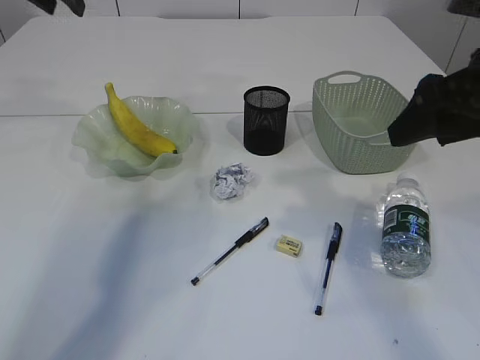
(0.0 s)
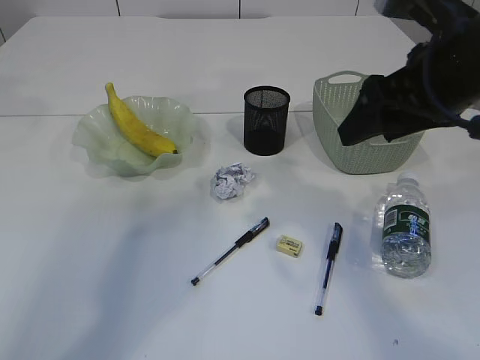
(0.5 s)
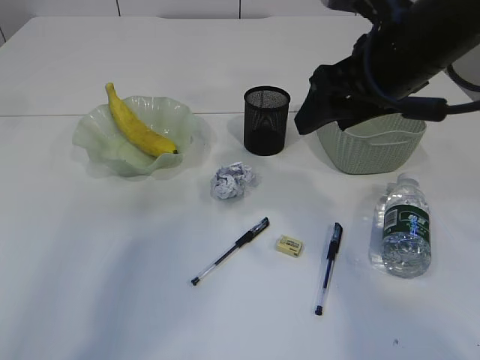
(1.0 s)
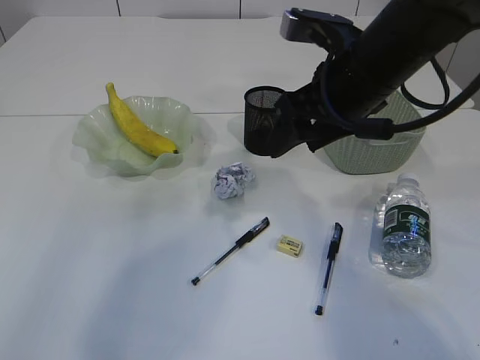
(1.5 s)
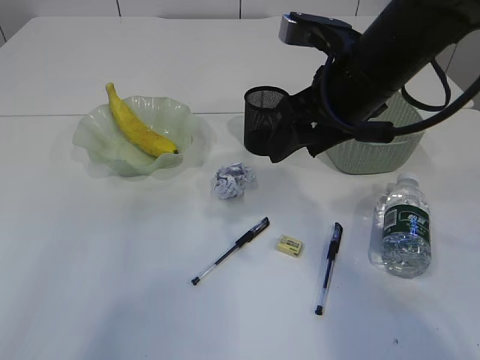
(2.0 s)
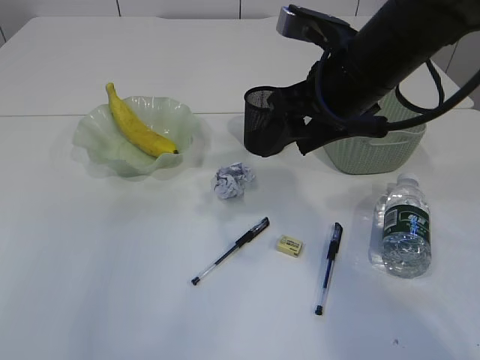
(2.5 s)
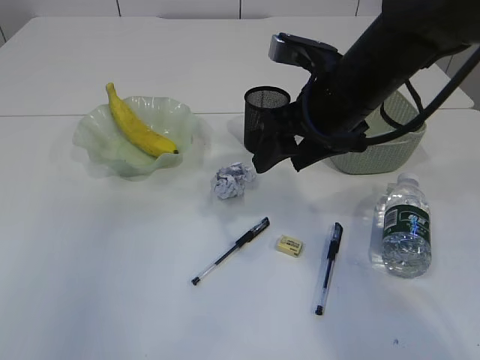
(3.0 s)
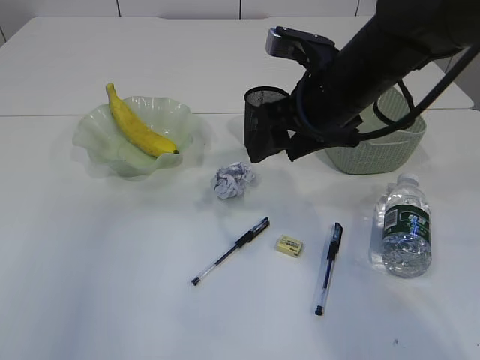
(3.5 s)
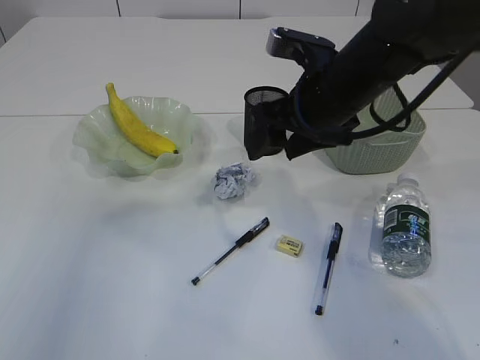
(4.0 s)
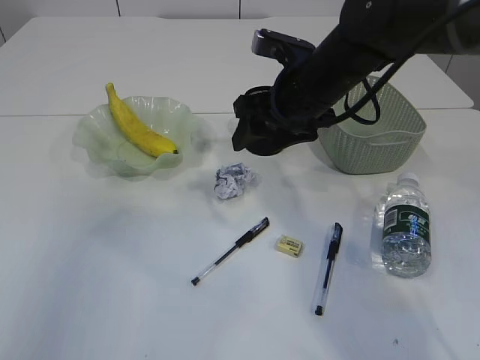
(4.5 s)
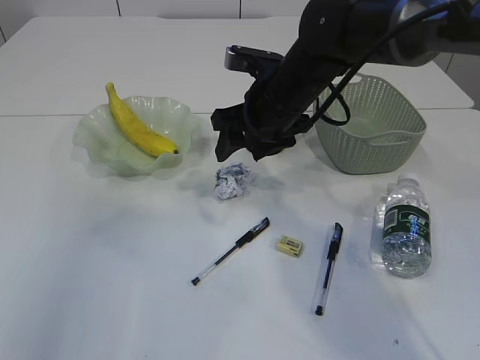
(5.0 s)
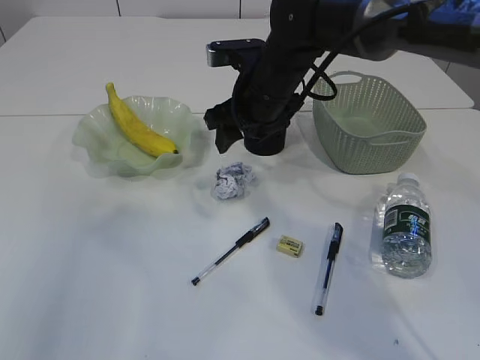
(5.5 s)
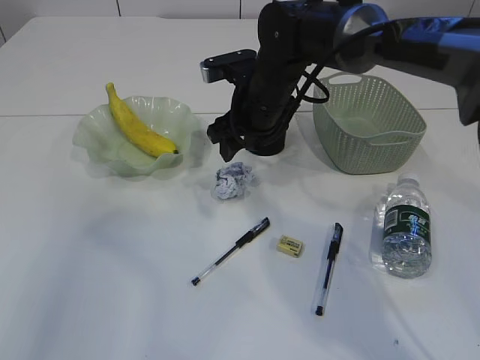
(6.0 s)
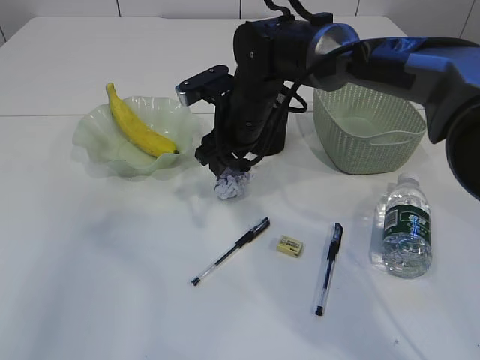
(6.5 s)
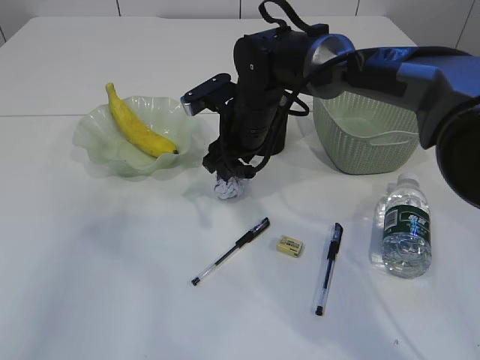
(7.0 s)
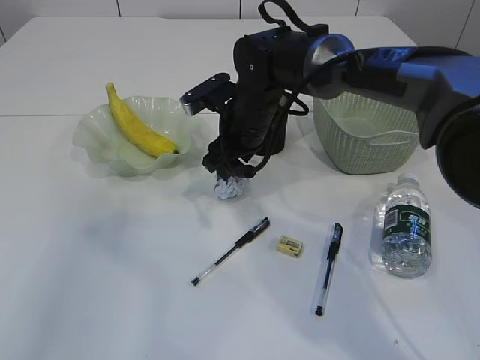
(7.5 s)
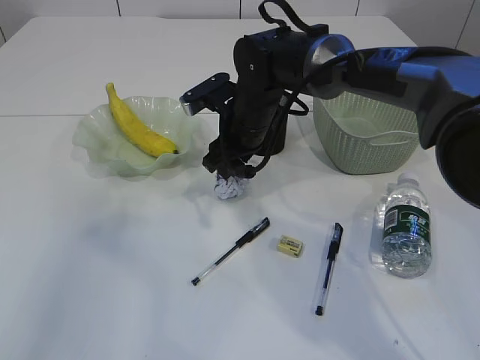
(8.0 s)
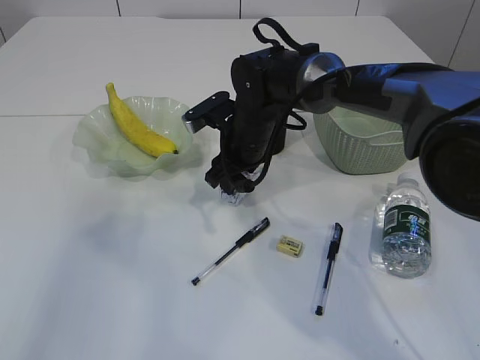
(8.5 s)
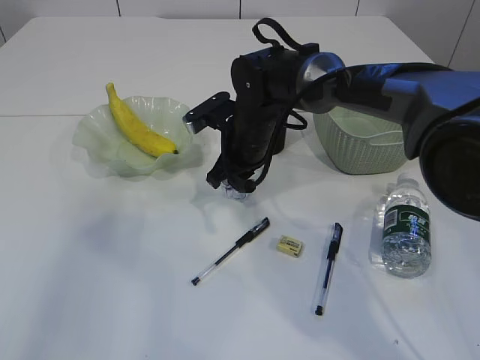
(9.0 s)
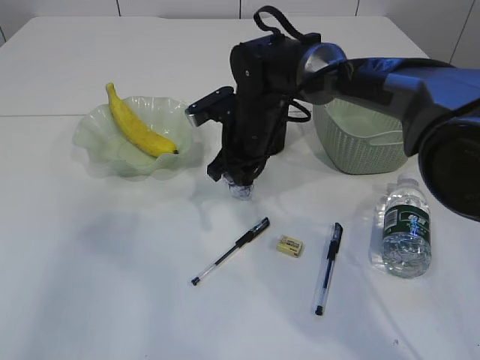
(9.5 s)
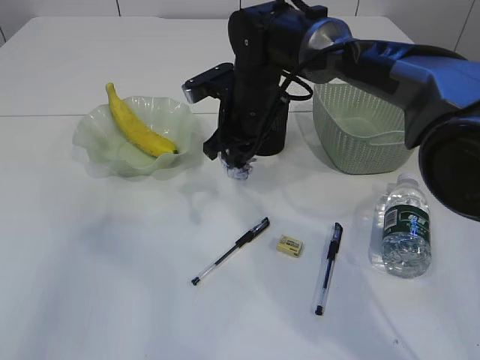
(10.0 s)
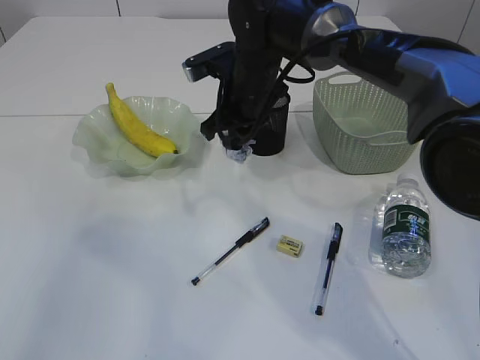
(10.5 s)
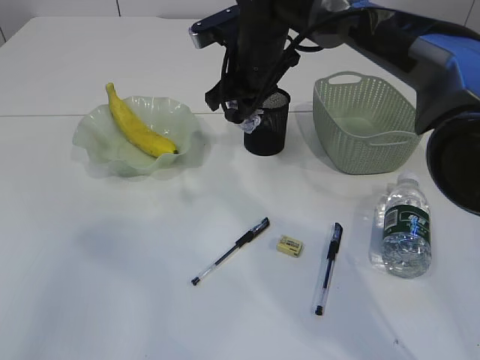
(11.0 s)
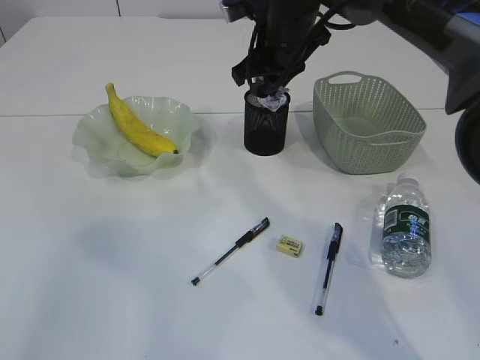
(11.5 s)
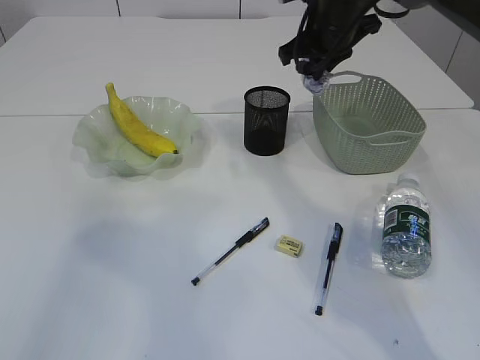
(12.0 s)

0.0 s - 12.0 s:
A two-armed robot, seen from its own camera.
Step, 0.0 s - 10.0 s: Pick up the waste paper.
0.0 s - 2.0 s: The right gripper is displaced to the left and forward by some 10 cm; the left gripper travels upward and backward by some 25 cm.
2.0 s - 4.0 s: The left gripper moves backward and downward, approximately 20 cm.
4.0 s - 6.0 s: The right gripper shifts about 10 cm forward and to the left.
6.0 s - 8.0 s: The grippers move only a little.
8.0 s - 10.0 s: The right gripper closes.
10.0 s - 12.0 s: The right gripper goes roughly 15 cm to the right and upward.

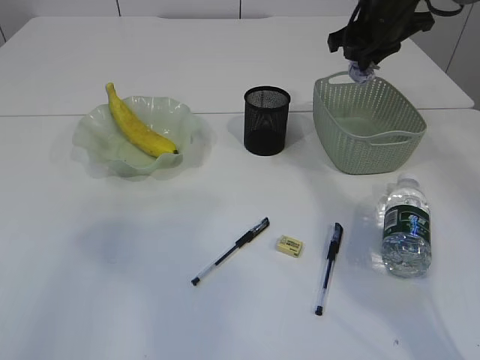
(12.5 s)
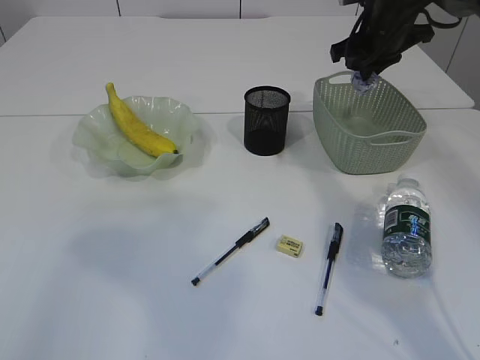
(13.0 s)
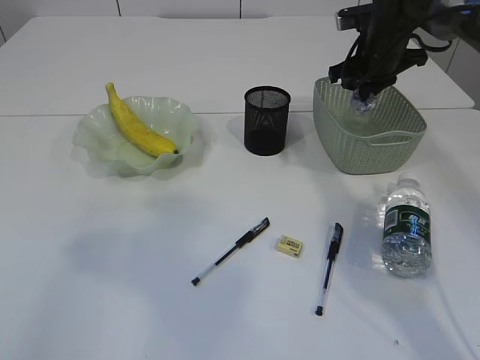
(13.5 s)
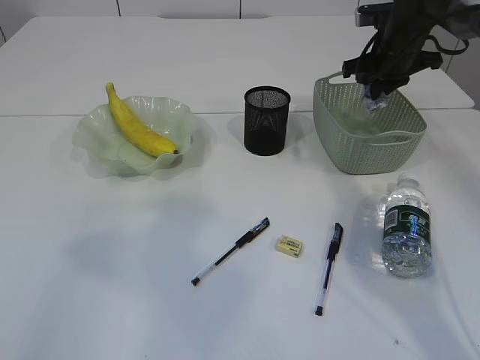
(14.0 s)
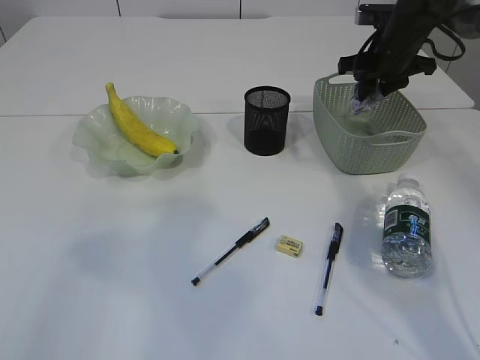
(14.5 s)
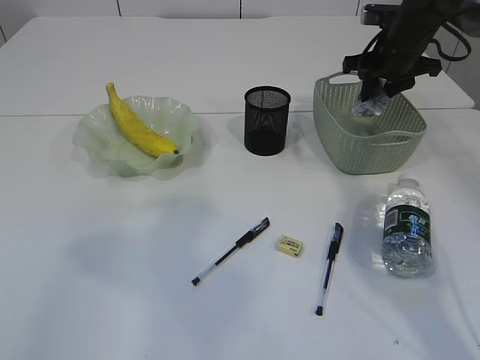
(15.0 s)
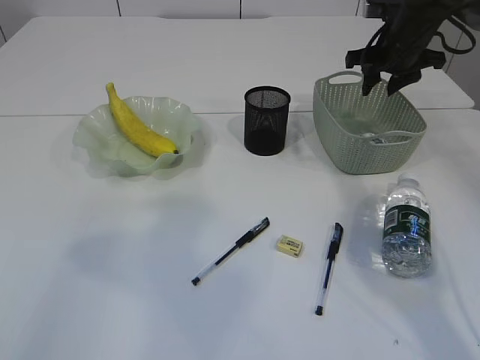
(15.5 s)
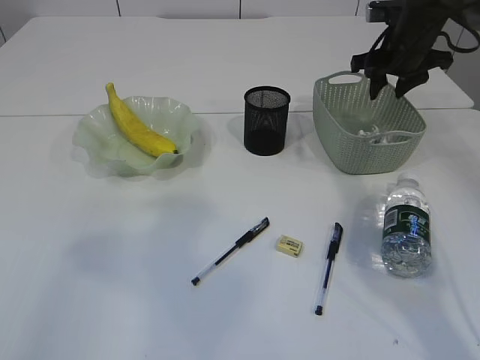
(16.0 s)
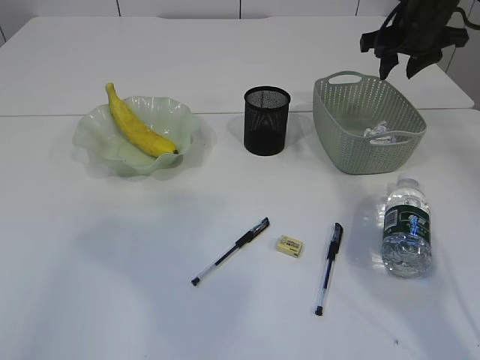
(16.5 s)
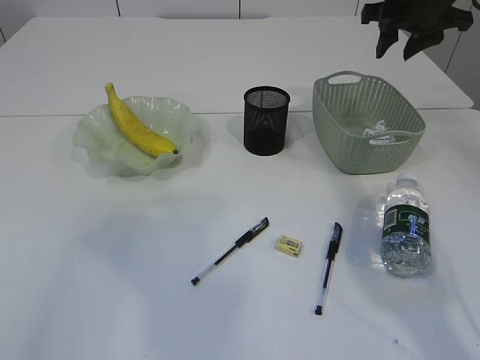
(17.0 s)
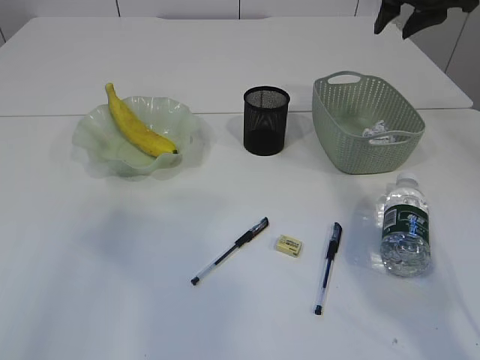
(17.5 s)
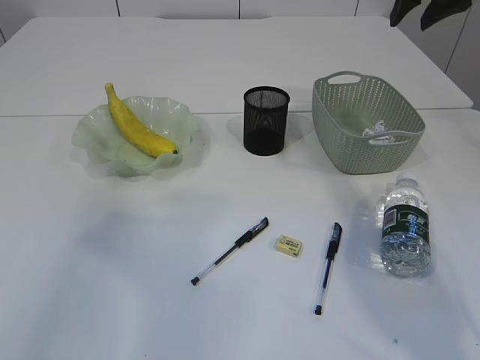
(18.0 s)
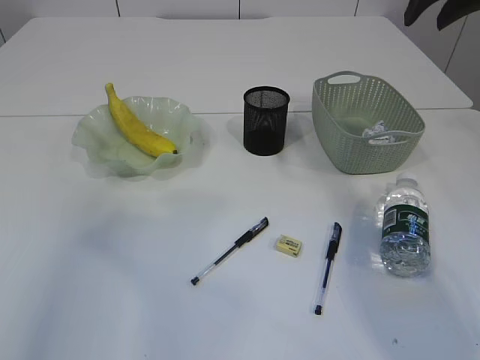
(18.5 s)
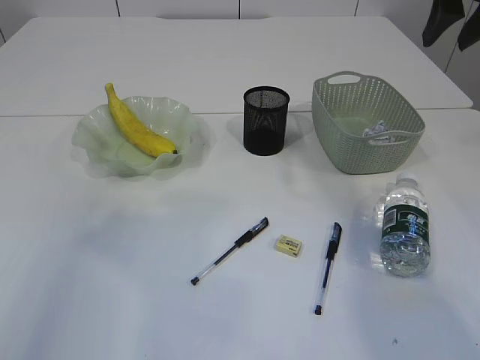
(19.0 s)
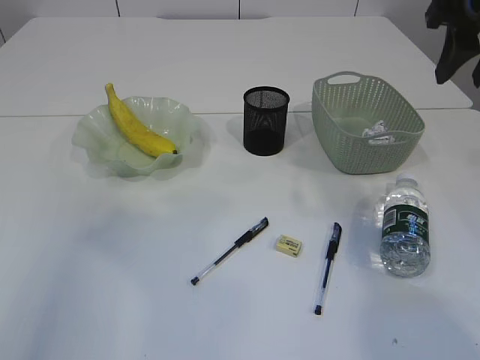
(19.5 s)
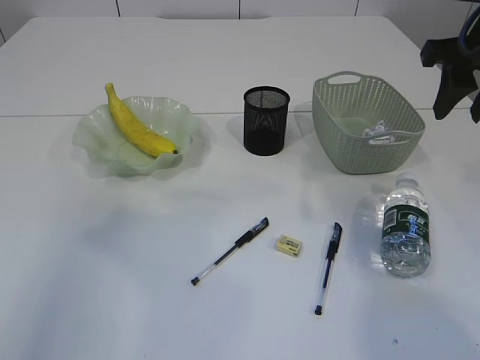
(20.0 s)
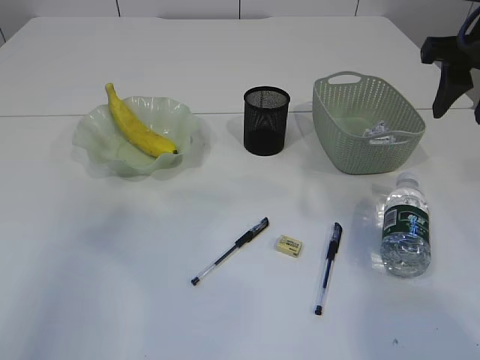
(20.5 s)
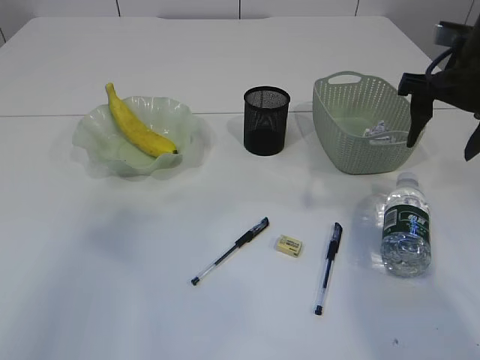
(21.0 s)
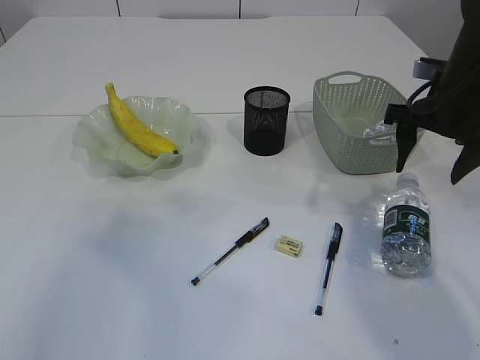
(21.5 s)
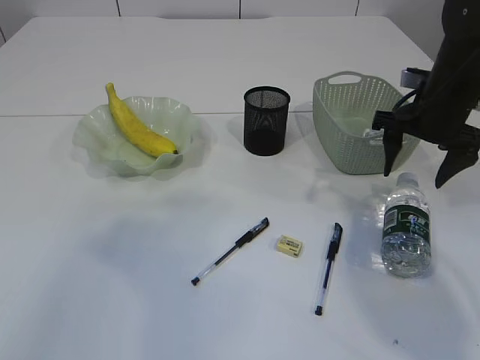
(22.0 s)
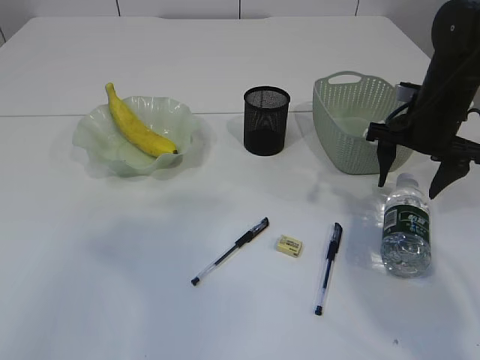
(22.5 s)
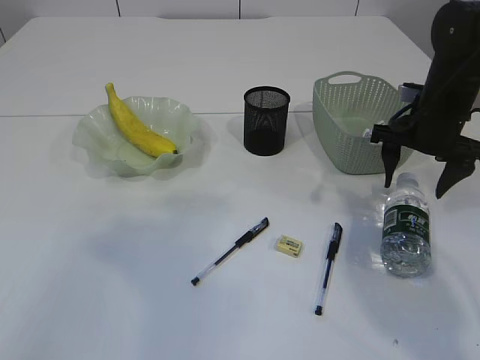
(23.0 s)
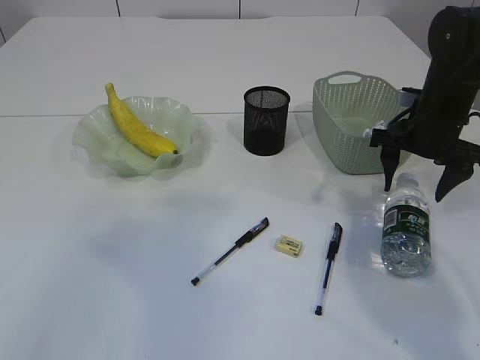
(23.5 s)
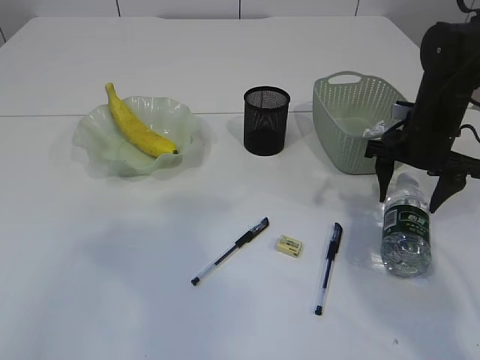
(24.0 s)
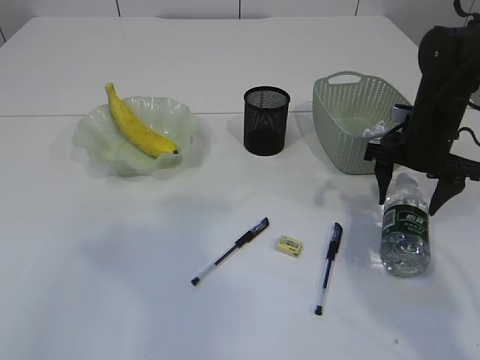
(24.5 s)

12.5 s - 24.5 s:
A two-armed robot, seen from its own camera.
Step, 12.5 s - 15.5 s: Place the waste paper in the basket.
12.5 s - 14.5 s: The right gripper goes approximately 5 cm downward, and opens up.
14.5 s - 16.5 s: There are only small adjustments of the grippers.
16.5 s - 18.5 s: The right gripper goes some 15 cm upward and backward.
18.5 s - 20.5 s: The right gripper goes roughly 10 cm backward and downward.
20.5 s - 22.5 s: The right gripper travels downward and forward by some 15 cm.
22.5 s - 24.5 s: There are only small adjustments of the grippers.

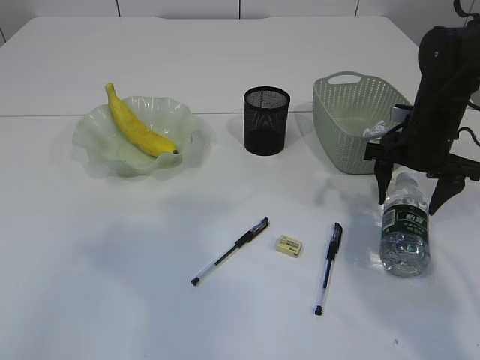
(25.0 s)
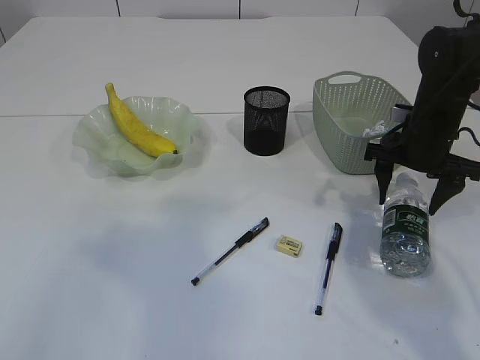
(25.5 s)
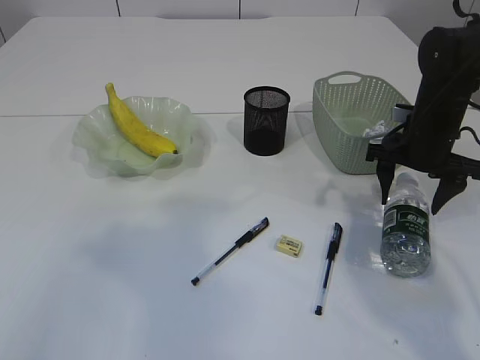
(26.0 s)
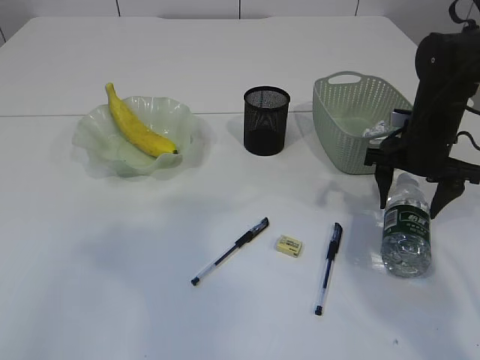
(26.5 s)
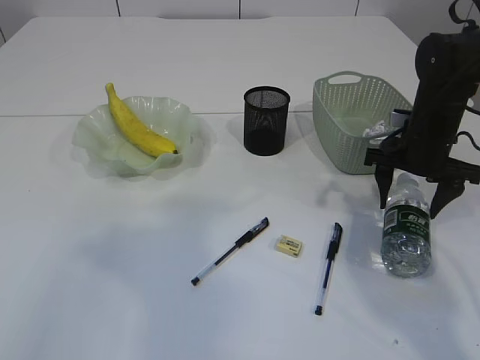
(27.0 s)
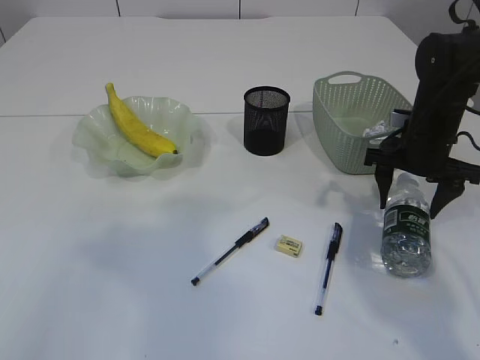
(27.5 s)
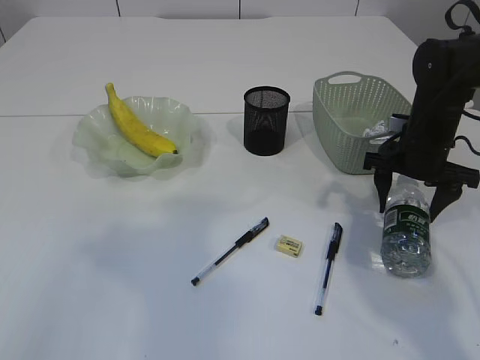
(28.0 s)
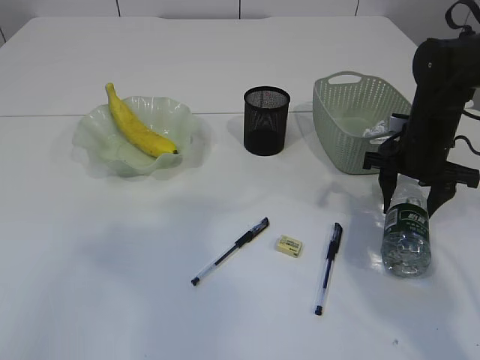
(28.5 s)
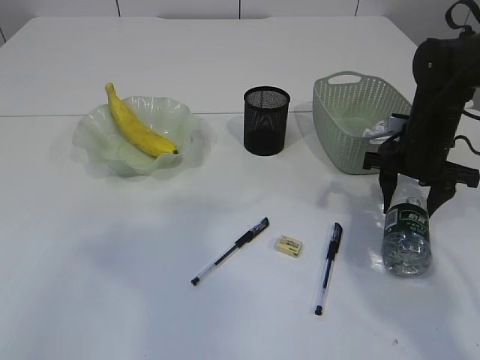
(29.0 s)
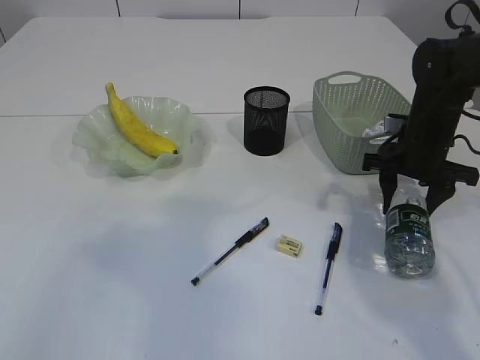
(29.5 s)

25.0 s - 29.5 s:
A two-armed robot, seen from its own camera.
25.0 s - 27.0 s: Neither gripper changes place.
27.0 s - 29.5 s: Neither gripper changes place.
